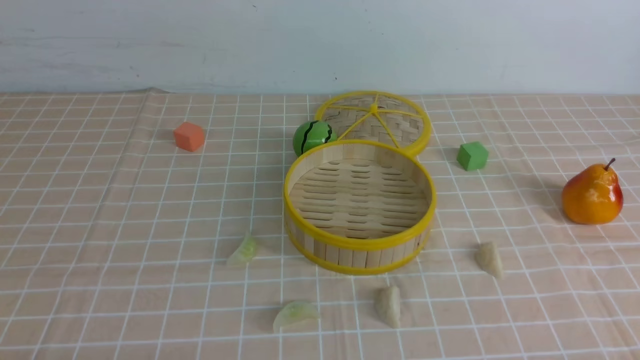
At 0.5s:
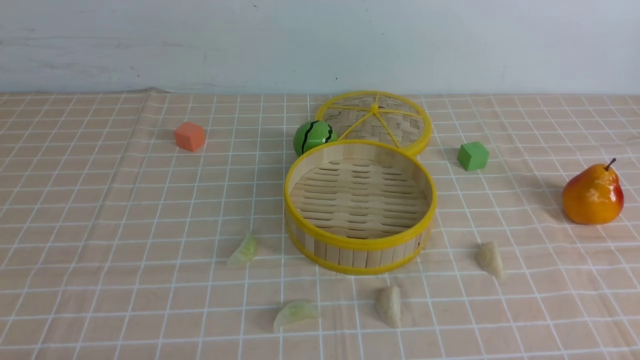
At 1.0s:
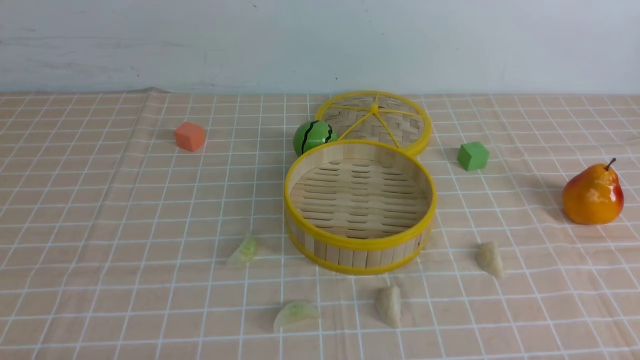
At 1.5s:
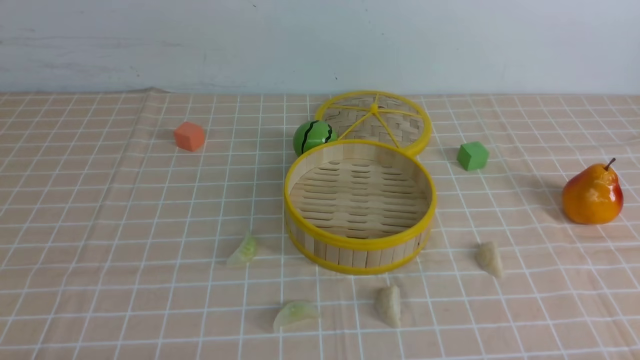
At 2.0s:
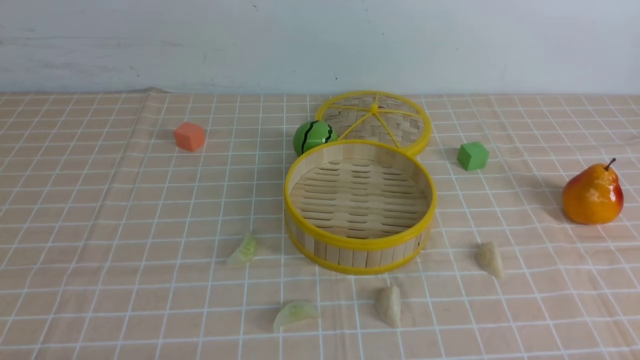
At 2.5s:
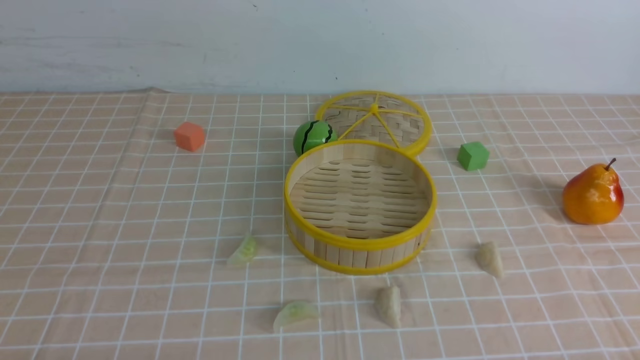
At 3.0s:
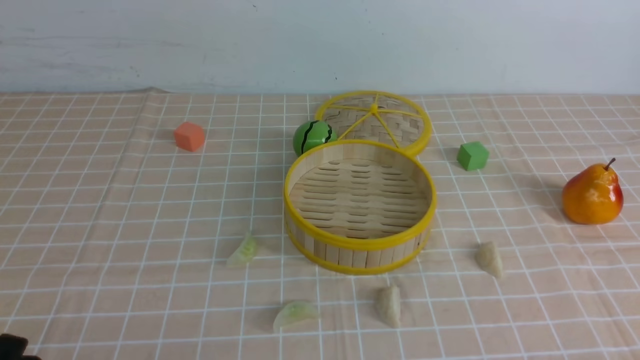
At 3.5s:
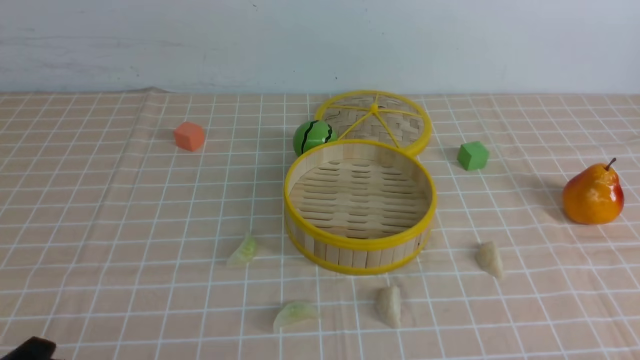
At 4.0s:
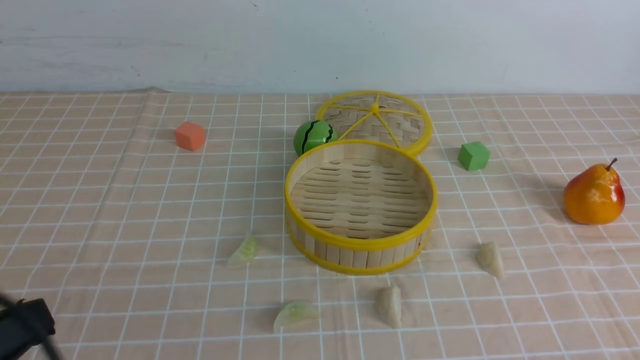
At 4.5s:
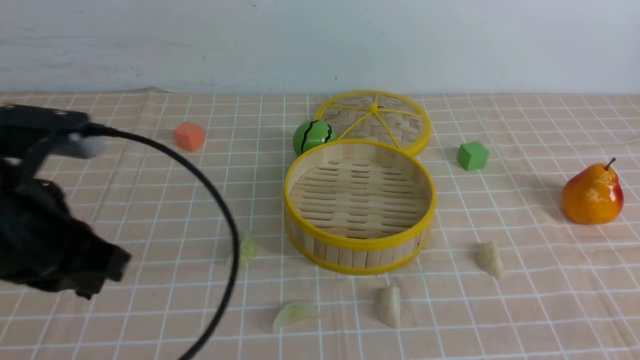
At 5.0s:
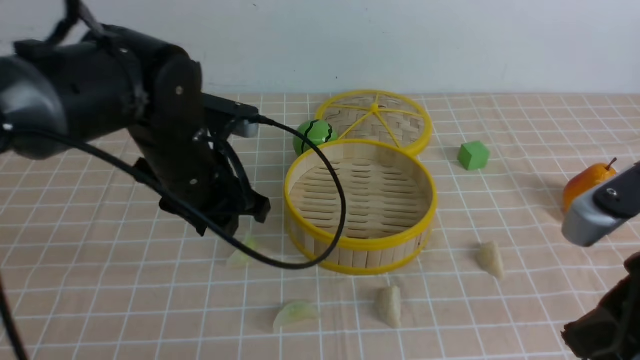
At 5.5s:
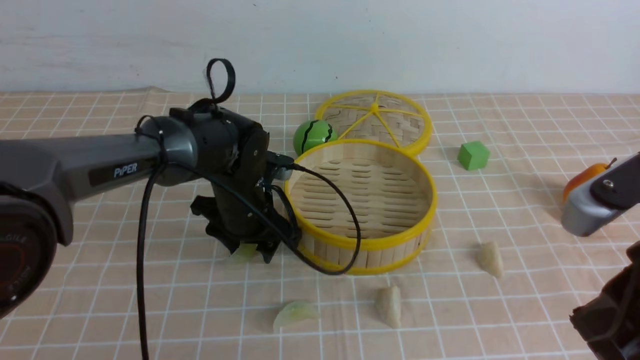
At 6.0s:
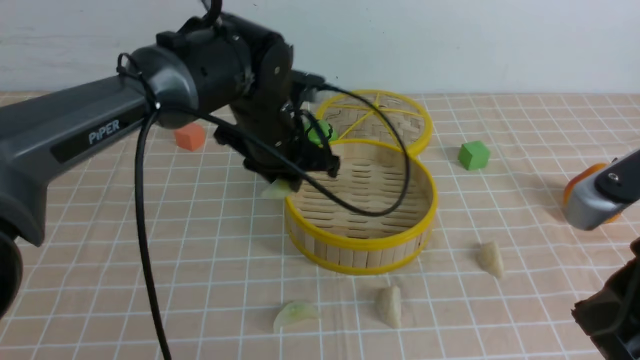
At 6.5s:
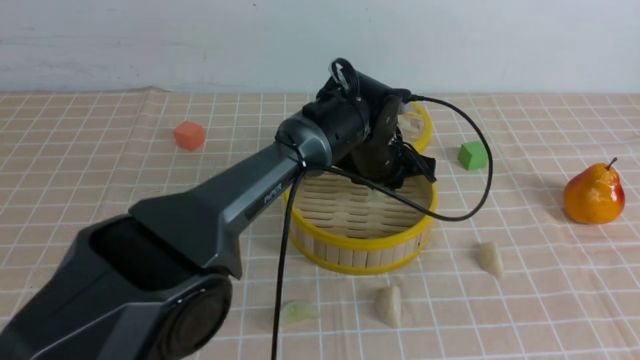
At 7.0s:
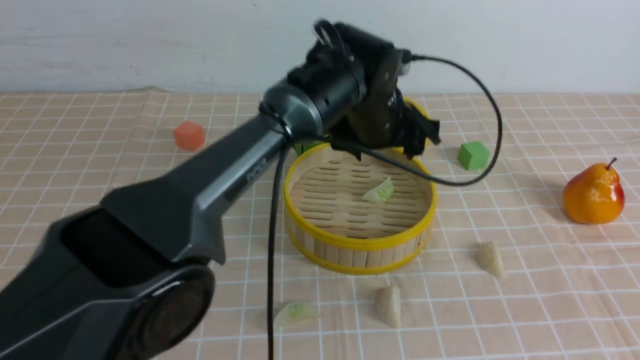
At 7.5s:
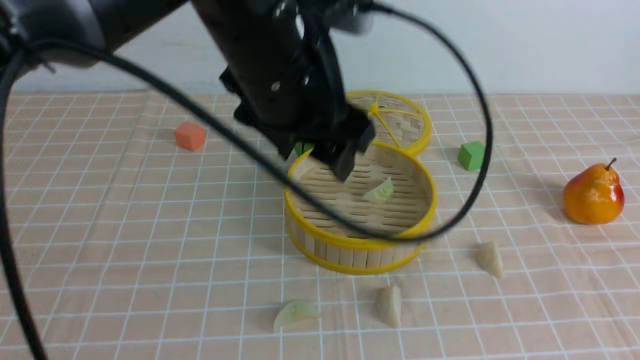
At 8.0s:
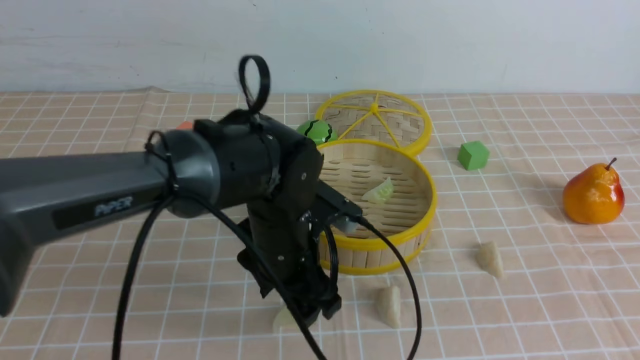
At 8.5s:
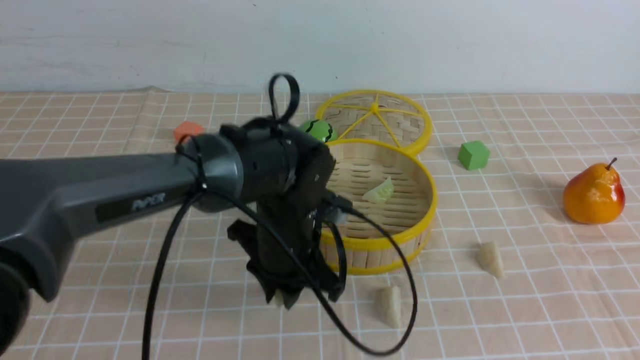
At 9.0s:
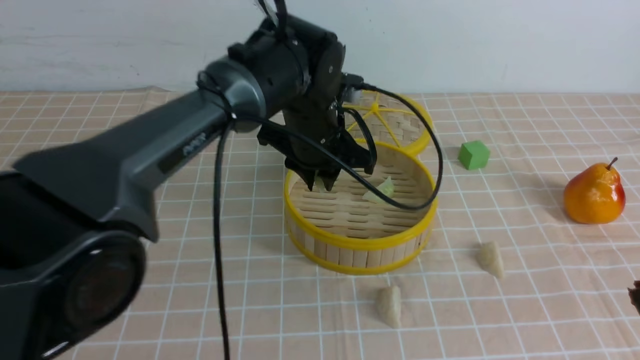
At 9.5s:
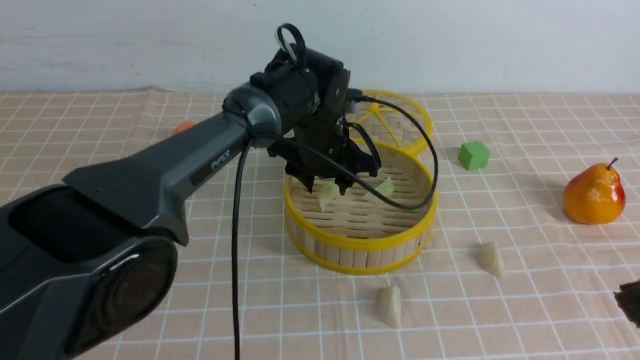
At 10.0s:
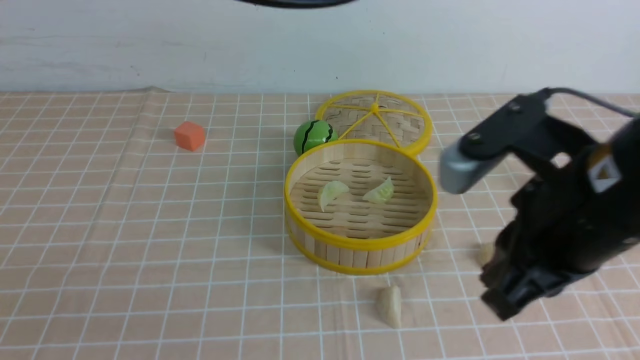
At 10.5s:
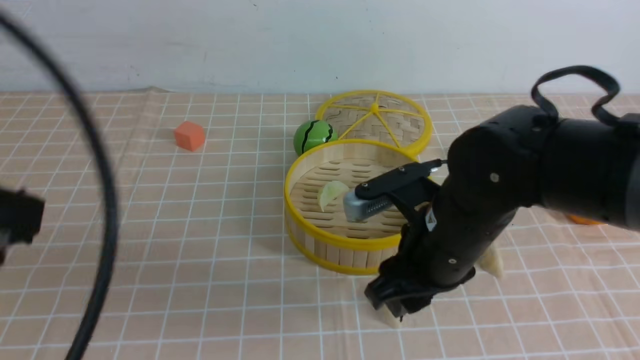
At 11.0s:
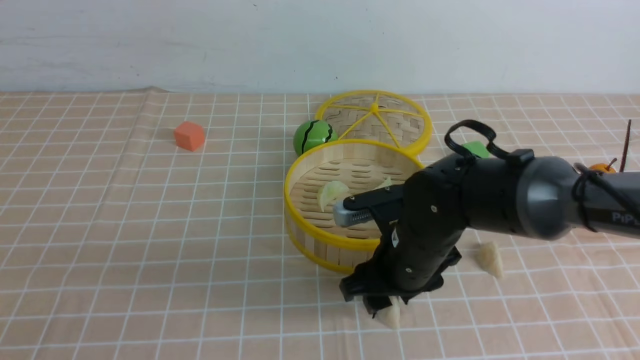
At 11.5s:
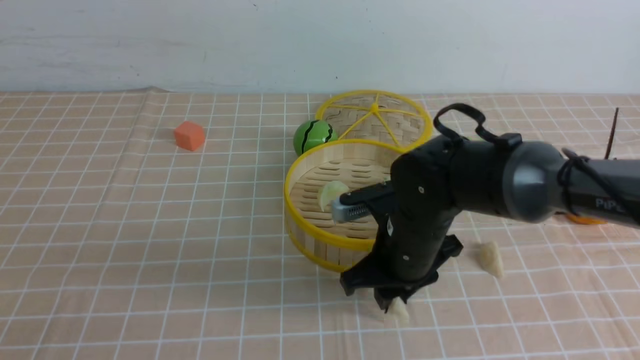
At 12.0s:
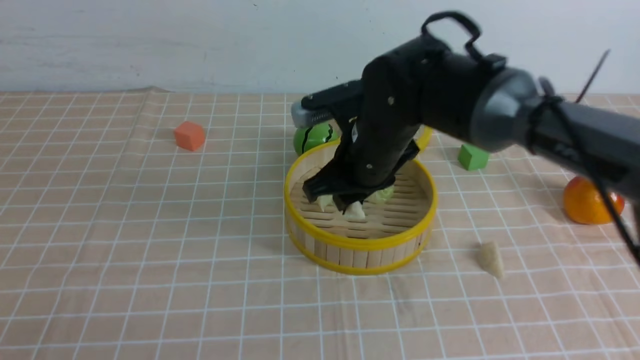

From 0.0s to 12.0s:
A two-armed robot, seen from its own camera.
Task of the whole recording: put the dumplings into the steamer on the table with the brown tablecloth.
Step, from 0.0s to 5.5s: use the left arm to grab a dumpling.
Step, from 6.0s to 7.0s: use the left arm to put the dumpling into the steamer.
Step, from 7.5s to 8.0s: use the left arm to grab a dumpling.
Step, from 8.5s to 9.5s: use the left arm to put the dumpling into the steamer.
Step, from 10.0s to 11.0s: use the right arm to grab a dumpling.
From 0.0s to 2.0s: Neither gripper changes place.
From 2.0s to 4.0s: The left gripper goes some 15 cm upward, and closes up.
From 4.0s to 6.0s: The left gripper travels forward and to the right by about 40 cm. Meanwhile the right gripper moves upward, forward and to the left, some 20 cm.
From 6.0s to 8.0s: The left gripper goes some 10 cm backward, moves about 10 cm upward and comes back, and opens its fingers. The right gripper heads backward, covering approximately 5 cm.
From 8.0s to 10.0s: The left gripper goes some 30 cm upward, and closes its fingers; the right gripper heads forward and to the left, covering approximately 15 cm.
From 10.0s to 12.0s: The right gripper travels forward, to the left and downward by about 25 cm, and opens its fingers; the left gripper shifts roughly 30 cm backward, downward and to the left, and closes.

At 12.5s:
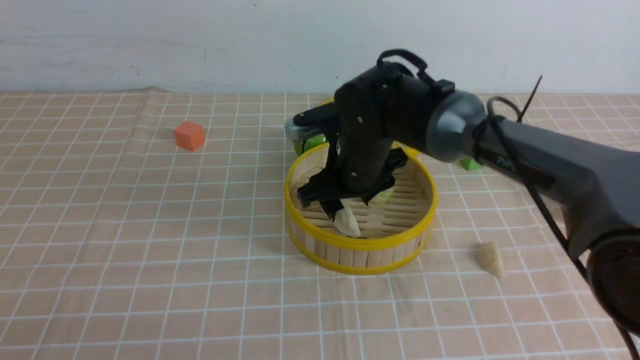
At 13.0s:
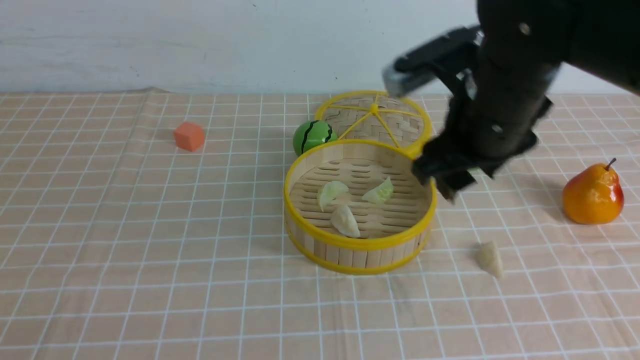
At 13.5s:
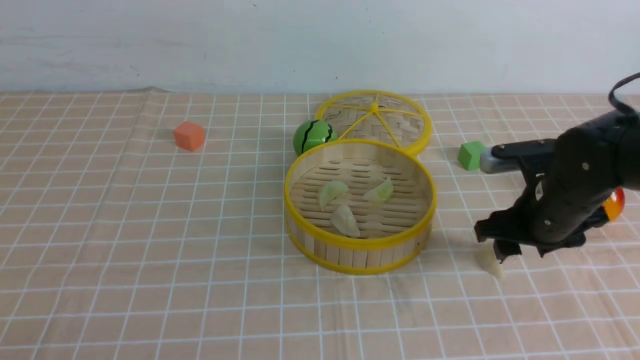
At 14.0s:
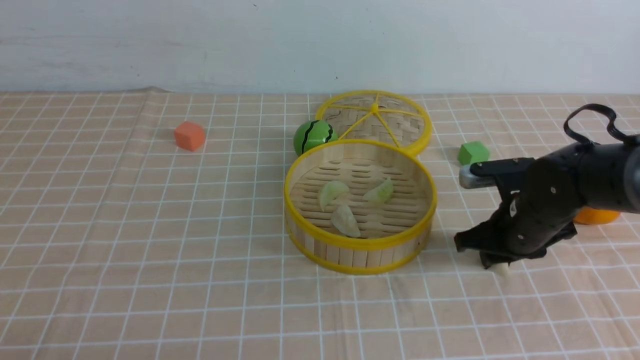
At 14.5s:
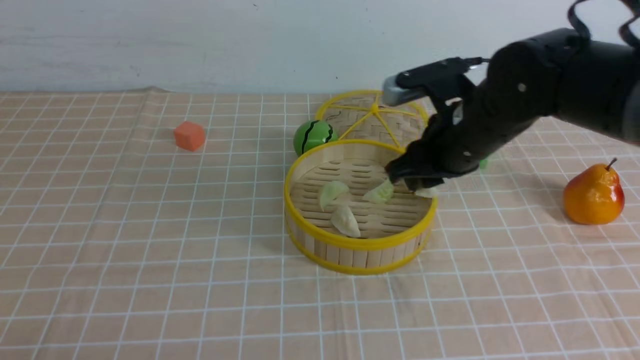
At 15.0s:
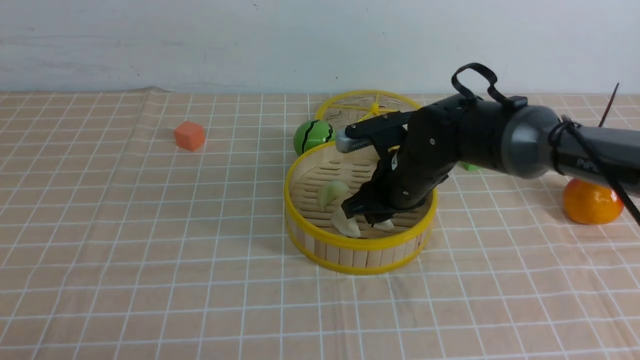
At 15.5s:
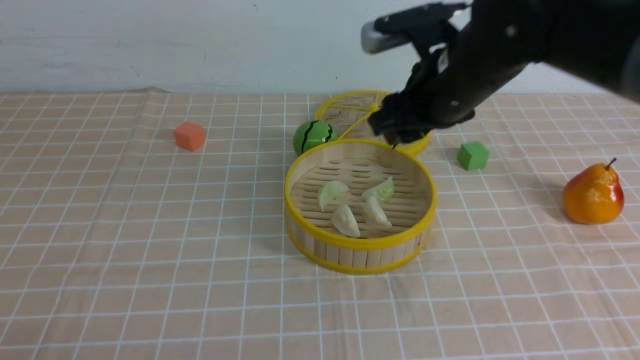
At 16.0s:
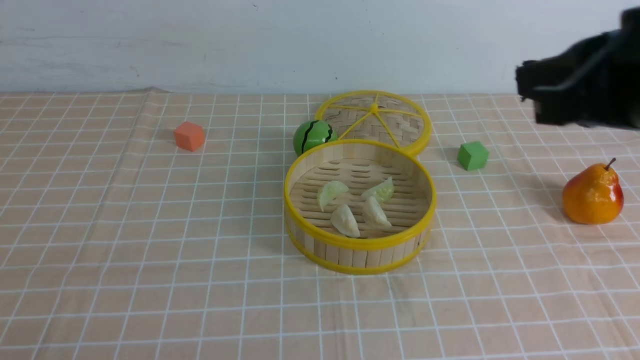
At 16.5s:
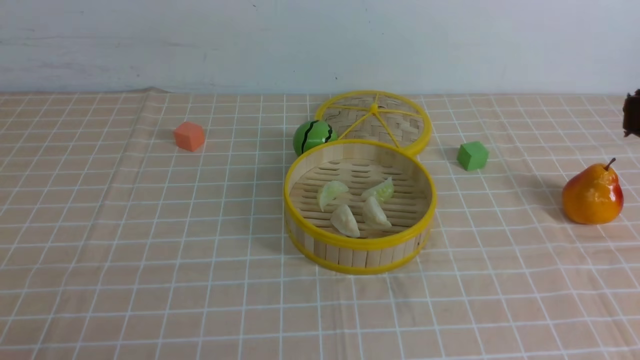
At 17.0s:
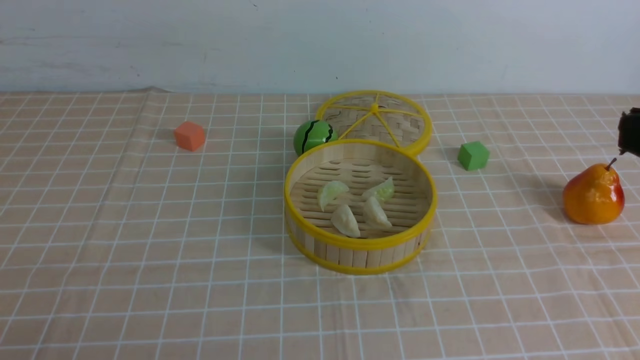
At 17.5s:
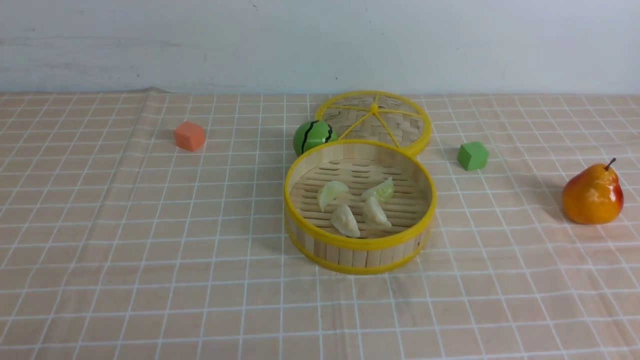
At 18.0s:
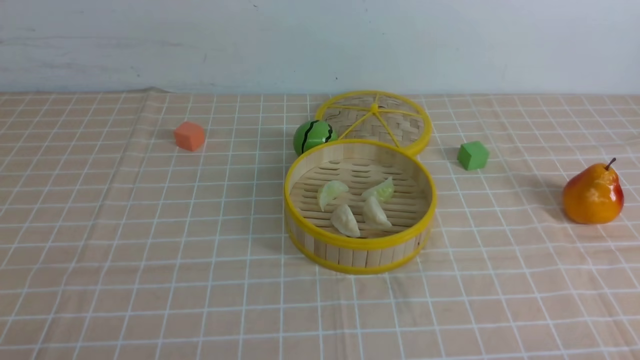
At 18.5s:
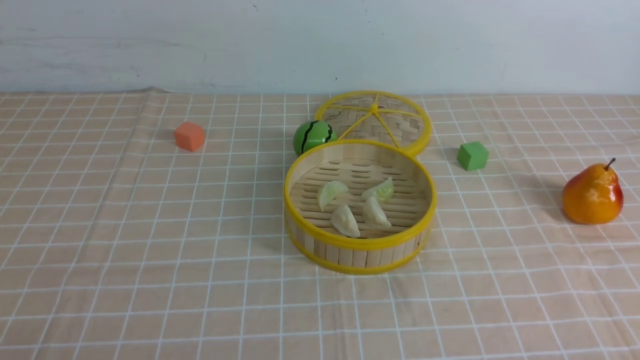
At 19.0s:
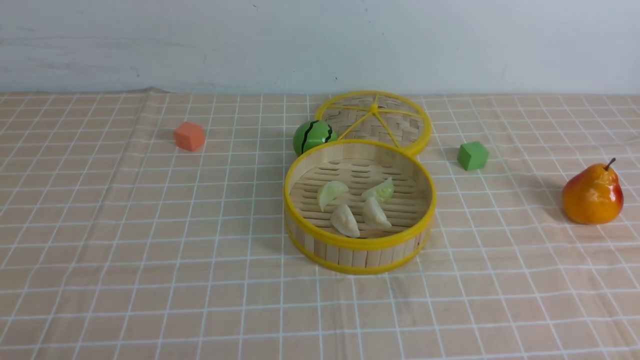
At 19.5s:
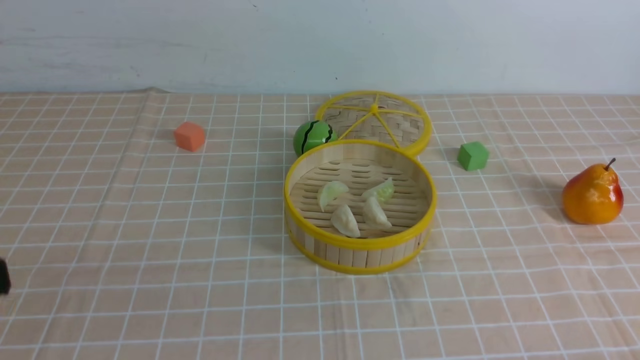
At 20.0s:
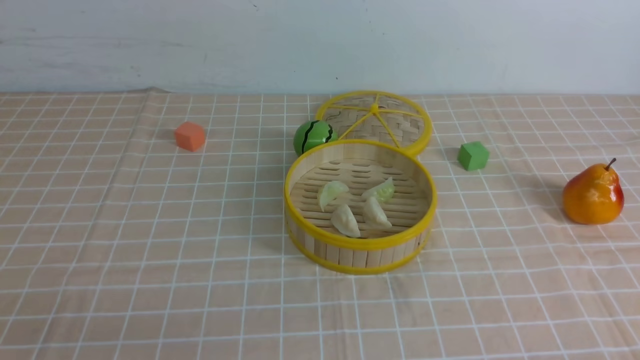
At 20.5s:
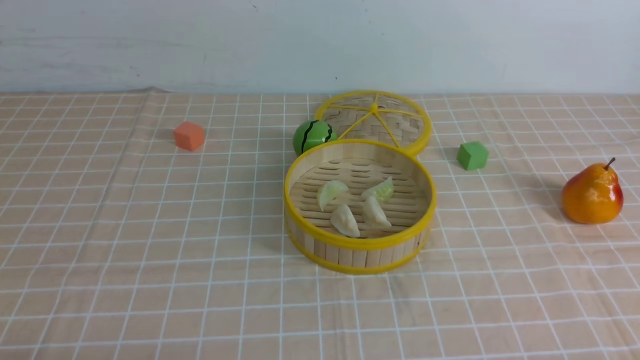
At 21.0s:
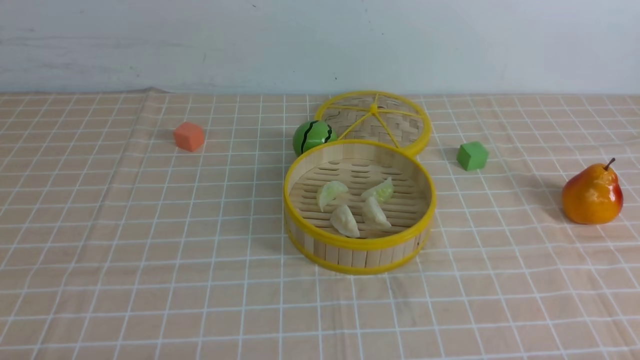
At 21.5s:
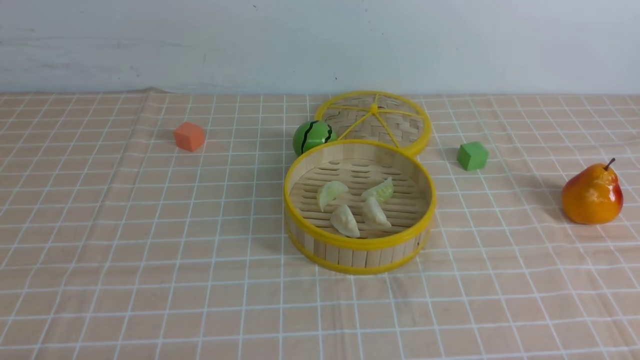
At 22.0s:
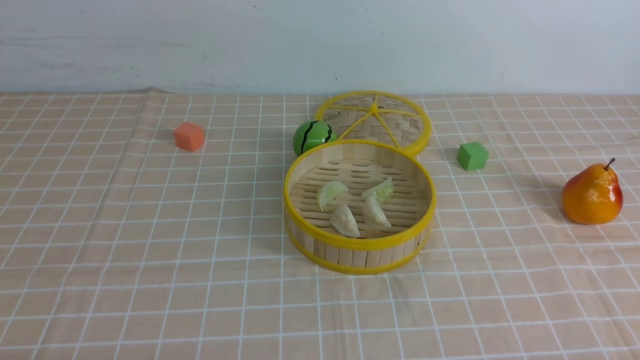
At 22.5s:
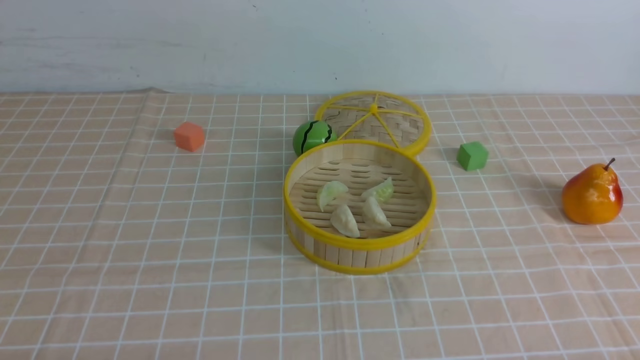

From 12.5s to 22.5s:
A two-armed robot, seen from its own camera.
Task of the whole recording: put the dumplings into the steamer on the table with the brown tablecloth.
Step, from 13.0s to 14.0s: use the right arm to grab a dumpling.
Step, from 14.5s to 15.0s: use the right arm to put the dumpling into the steamer.
From 12.5s to 14.5s: The right gripper heads to the right, covering about 10 cm, and closes.
From 14.5s to 16.5s: The right gripper moves backward and upward, some 30 cm, and closes its fingers.
